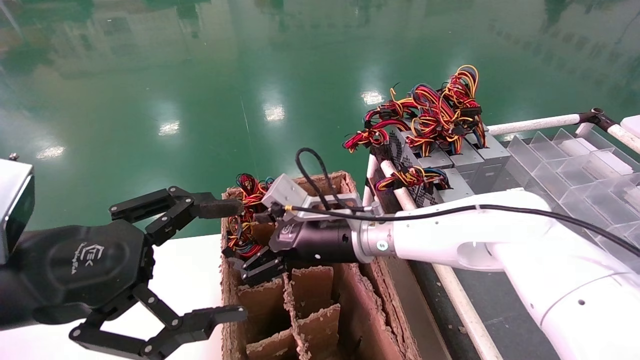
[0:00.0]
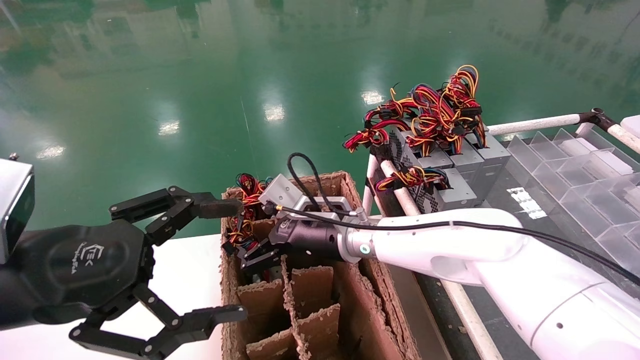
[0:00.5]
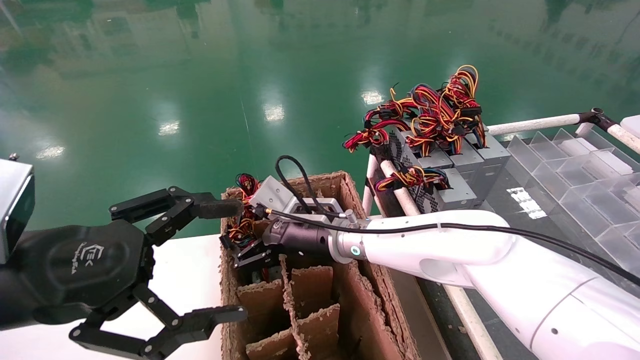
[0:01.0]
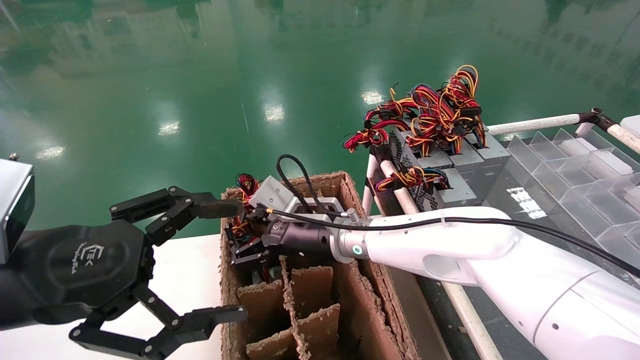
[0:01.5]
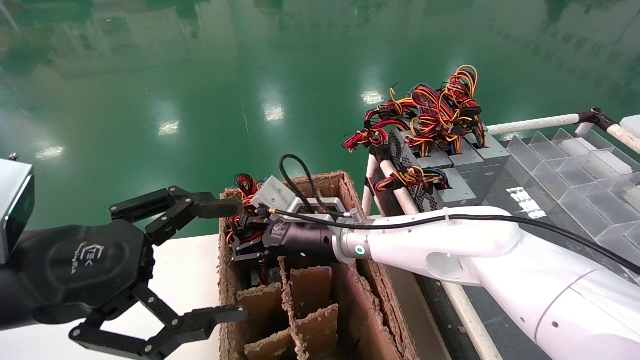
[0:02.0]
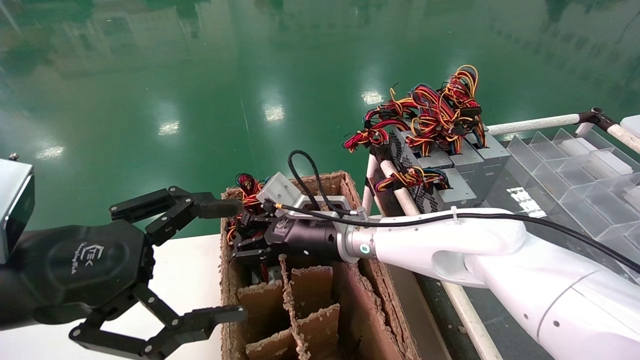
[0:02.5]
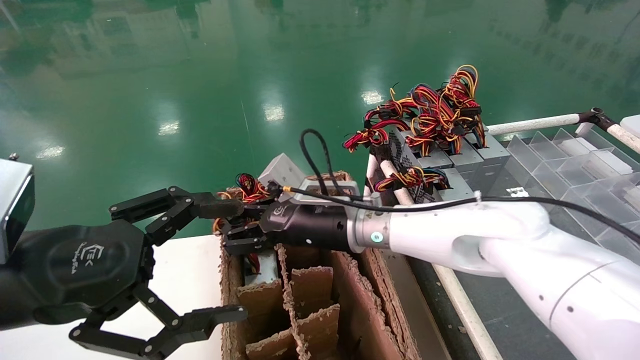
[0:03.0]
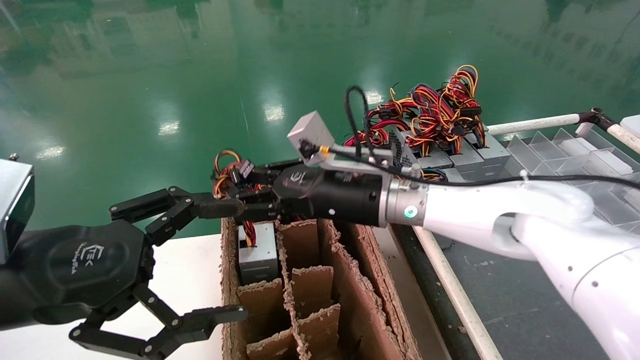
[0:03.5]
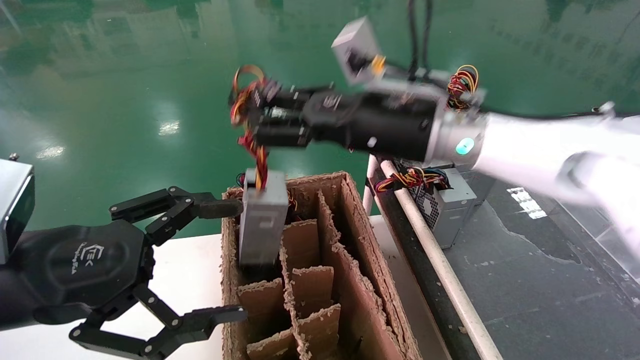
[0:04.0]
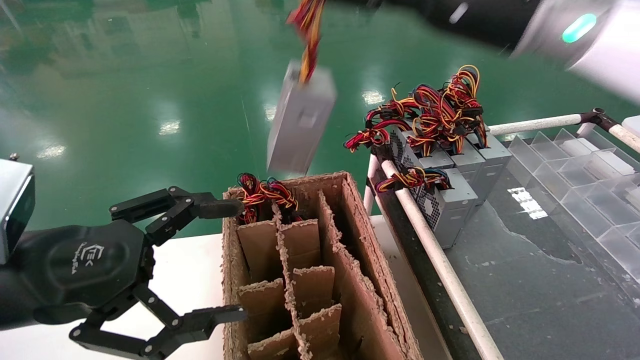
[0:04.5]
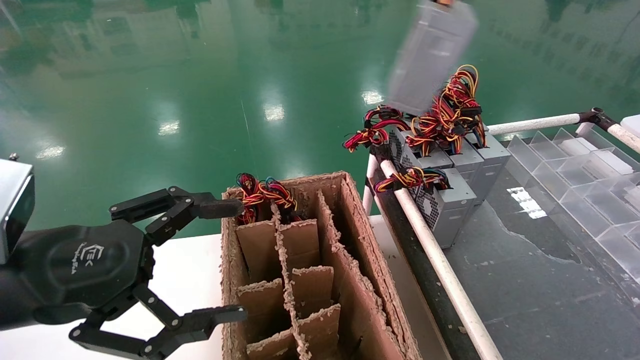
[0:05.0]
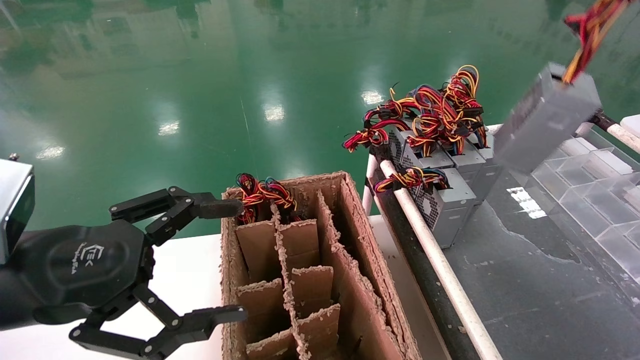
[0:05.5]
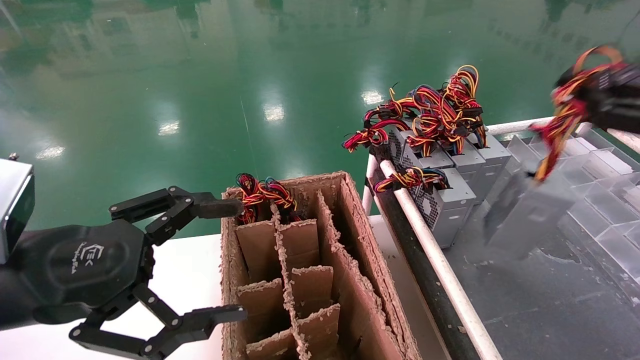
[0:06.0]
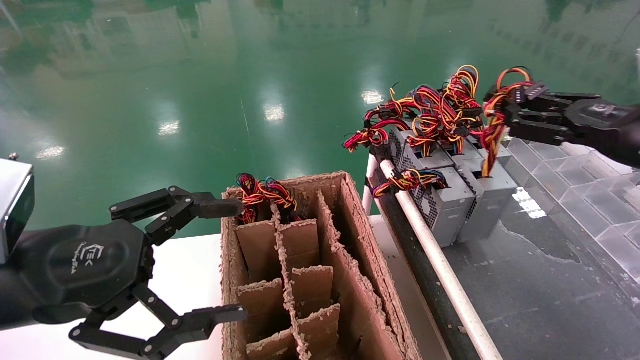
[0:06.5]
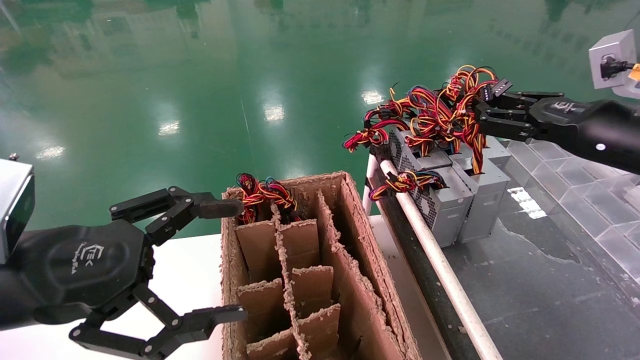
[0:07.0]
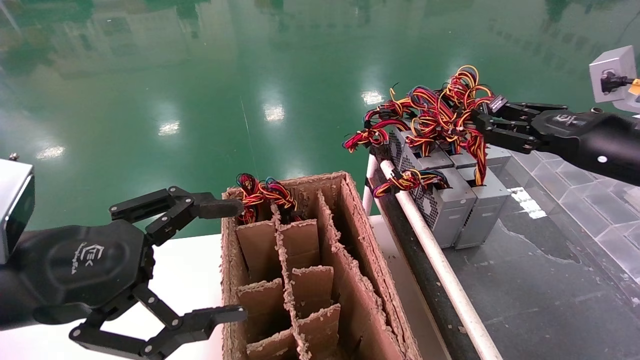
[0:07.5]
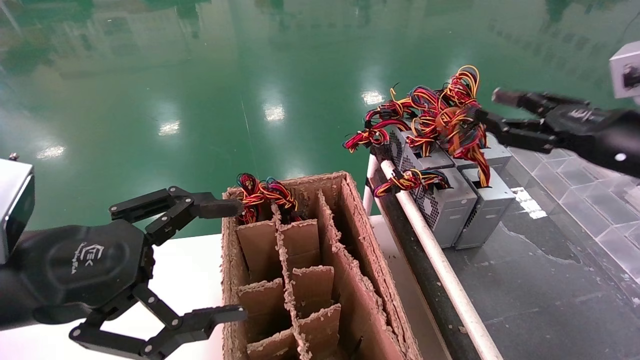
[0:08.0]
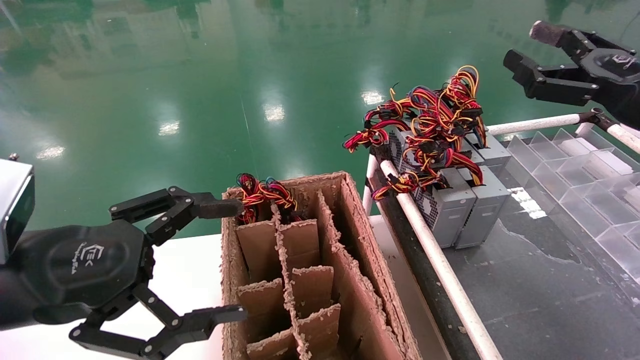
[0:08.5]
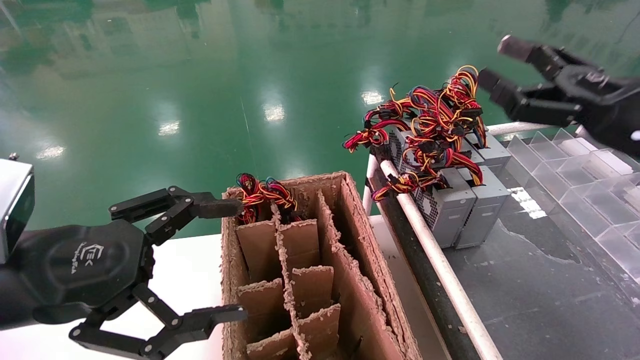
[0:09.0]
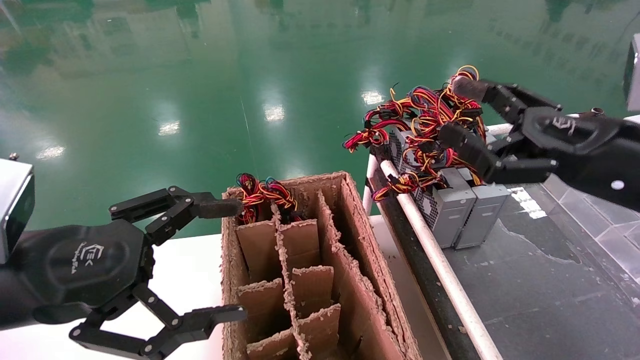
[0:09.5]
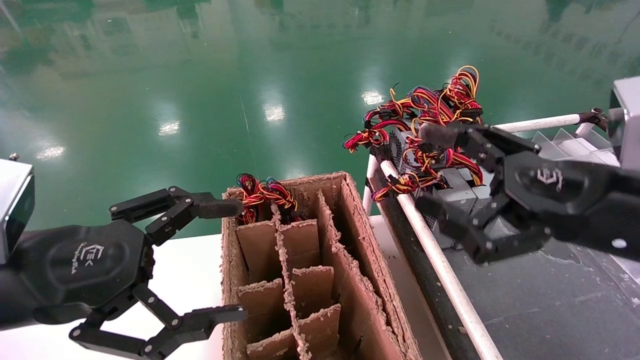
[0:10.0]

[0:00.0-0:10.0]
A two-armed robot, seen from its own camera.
Step, 0:00.0 to 0:02.5: Grab and lift the power supply from the large box.
Step, 0:03.0 to 0:07.5: Place the power supply on the operating table.
0:00.0 to 0:02.0: The right gripper closes up.
0:02.0 to 0:04.0: The right gripper goes about 20 cm upward and to the right.
0:04.0 to 0:06.0: The right gripper travels to the right by approximately 35 cm.
0:06.0 to 0:08.0: The right gripper moves to the left and forward, about 10 cm, and opens its fingers.
0:08.0 to 0:10.0: The right gripper heads to the left and backward, covering about 15 cm, and opens up.

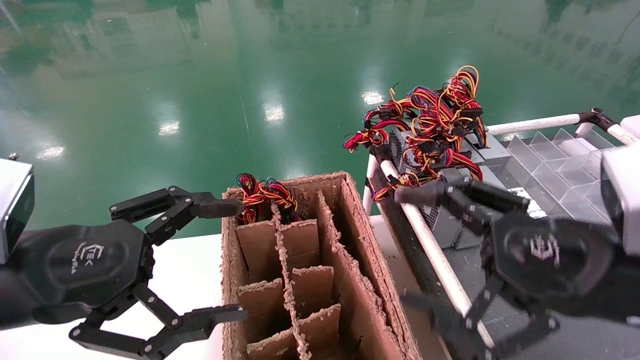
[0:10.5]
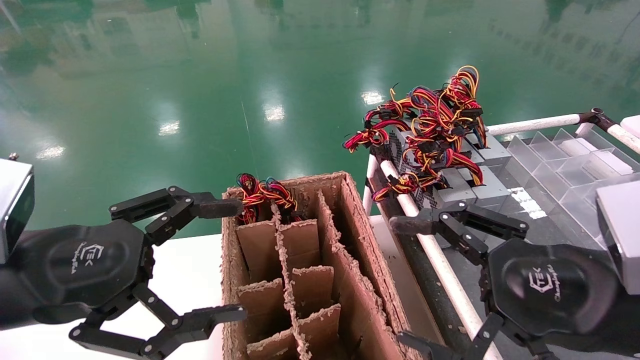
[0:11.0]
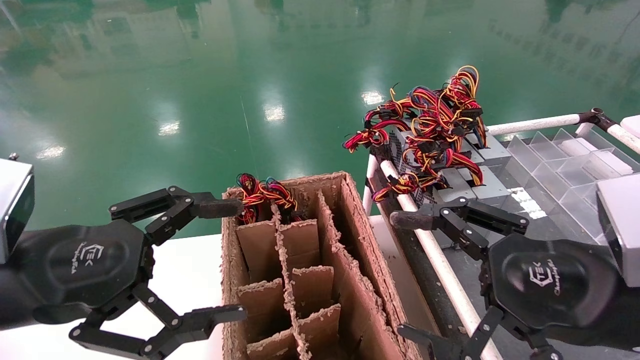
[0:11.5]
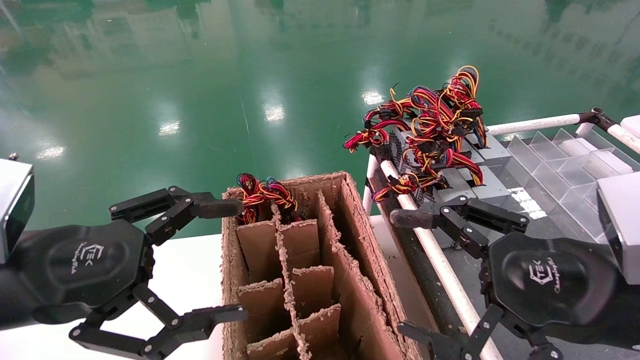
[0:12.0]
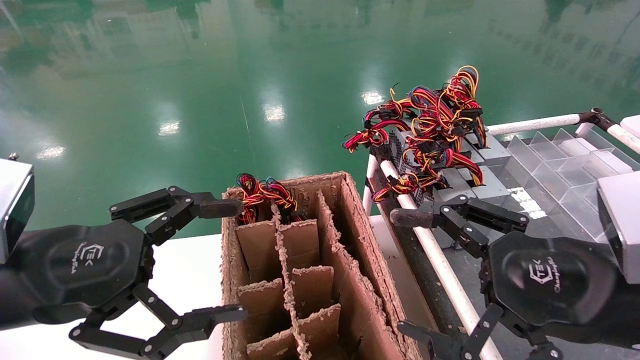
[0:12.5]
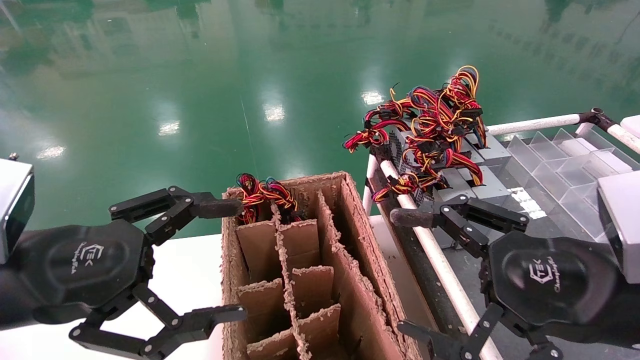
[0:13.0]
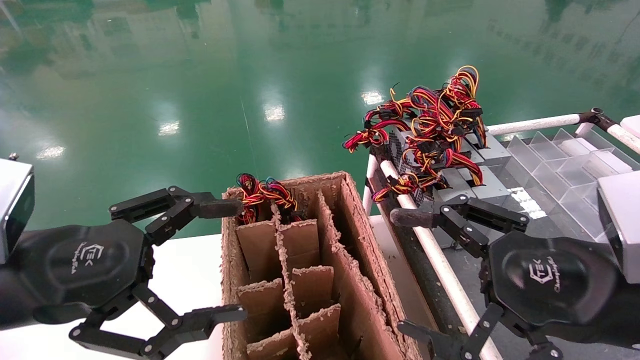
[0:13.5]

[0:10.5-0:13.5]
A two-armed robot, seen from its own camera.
0:10.5 to 0:12.0: The grippers move only a little.
0:12.0 to 0:13.5: The two grippers keep their place.

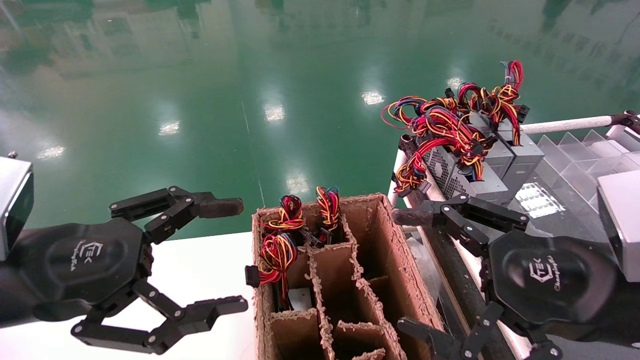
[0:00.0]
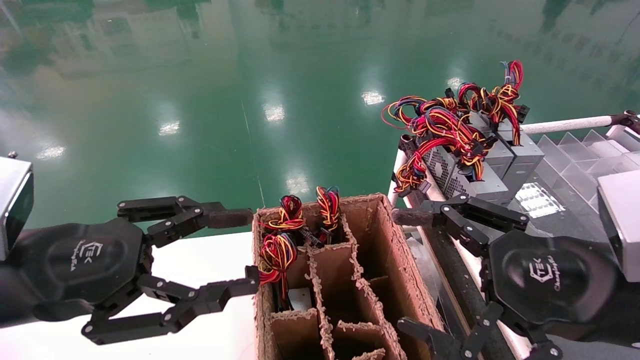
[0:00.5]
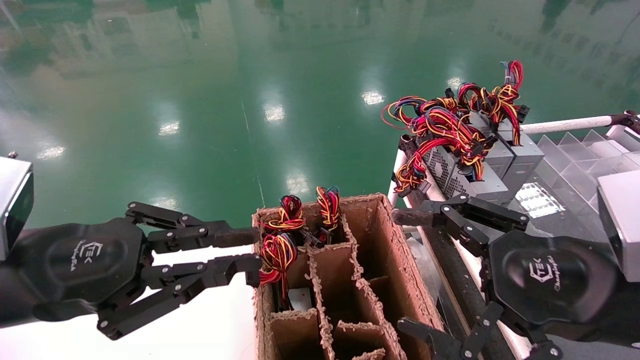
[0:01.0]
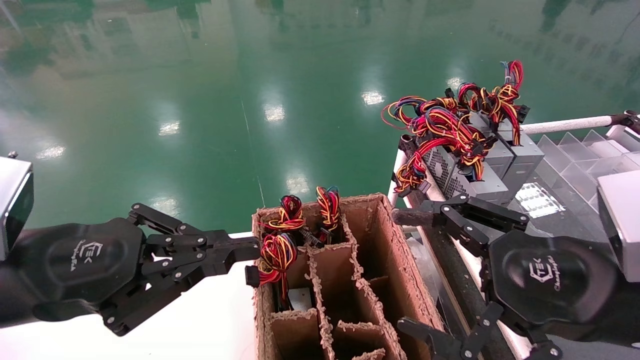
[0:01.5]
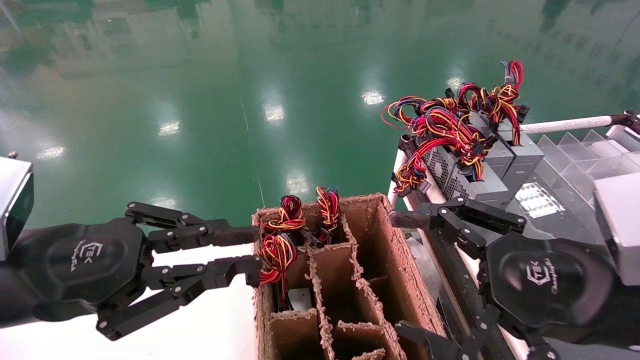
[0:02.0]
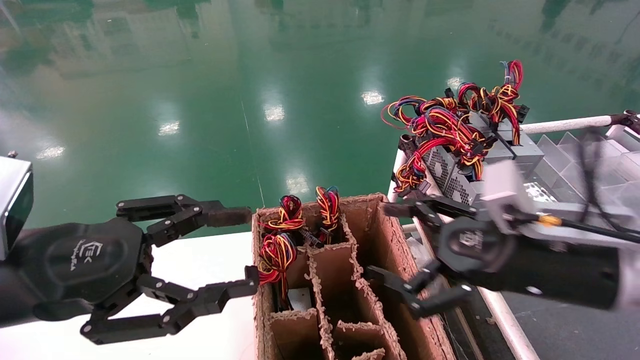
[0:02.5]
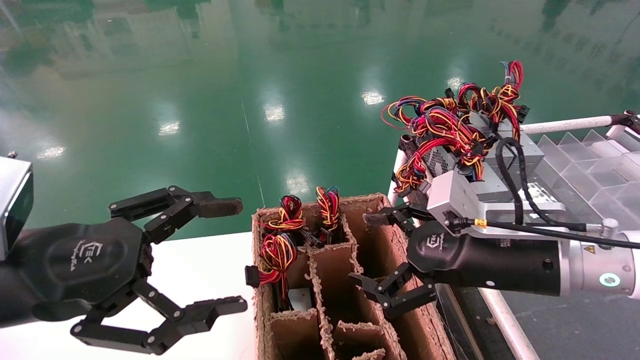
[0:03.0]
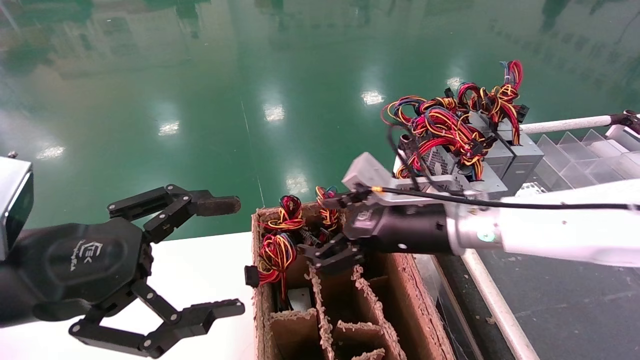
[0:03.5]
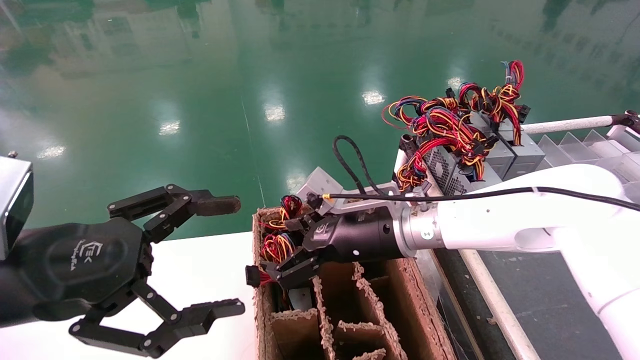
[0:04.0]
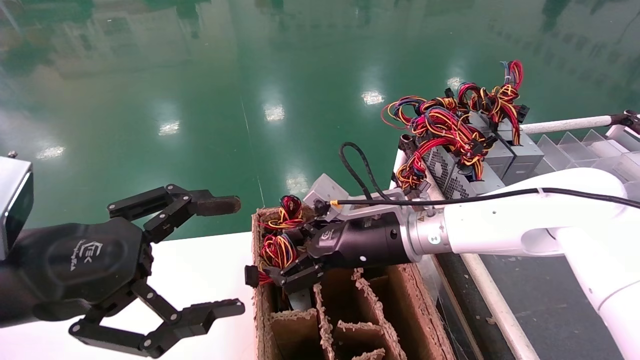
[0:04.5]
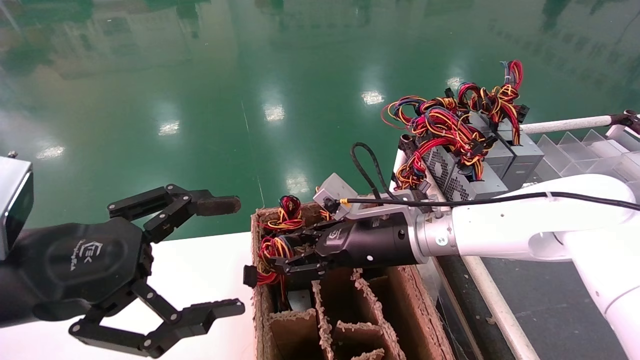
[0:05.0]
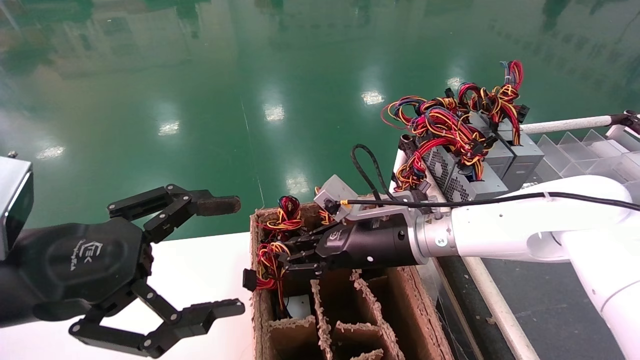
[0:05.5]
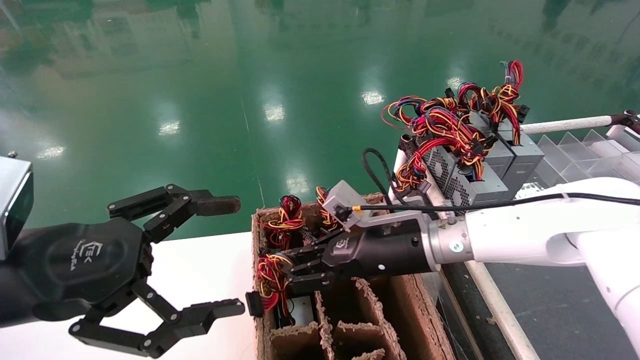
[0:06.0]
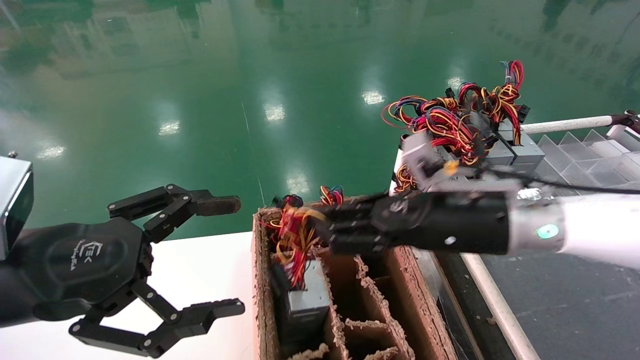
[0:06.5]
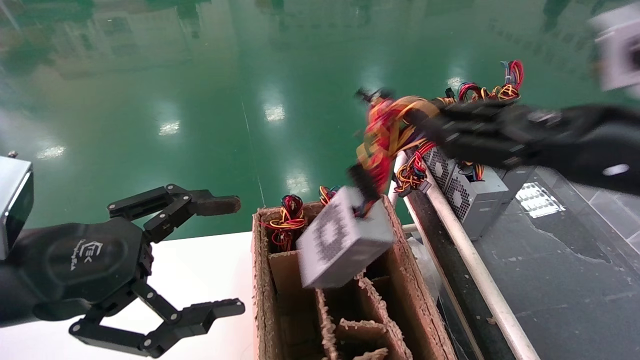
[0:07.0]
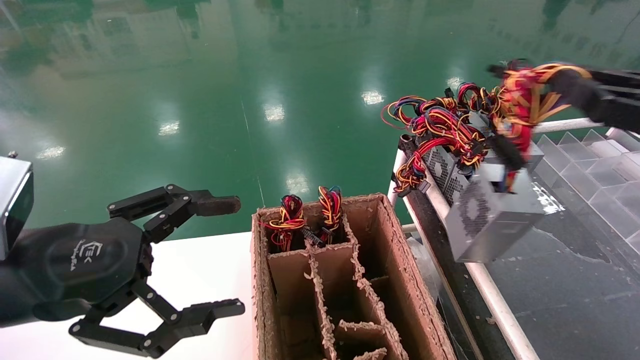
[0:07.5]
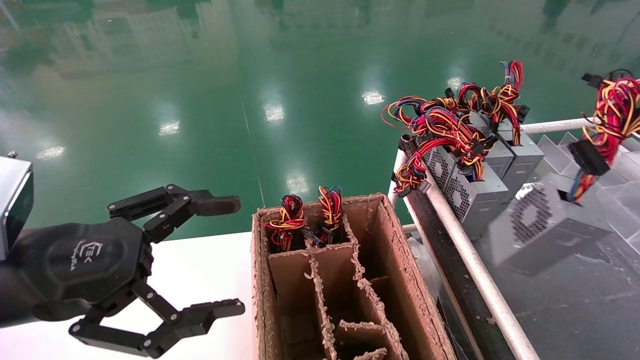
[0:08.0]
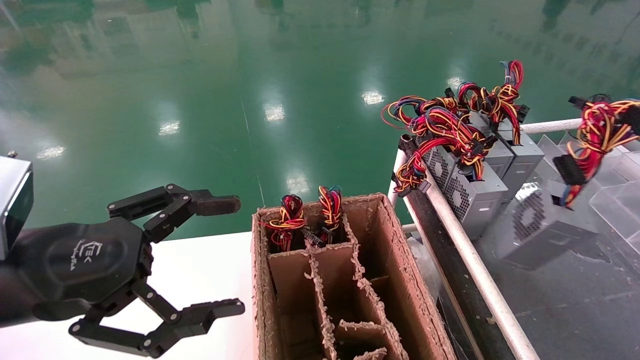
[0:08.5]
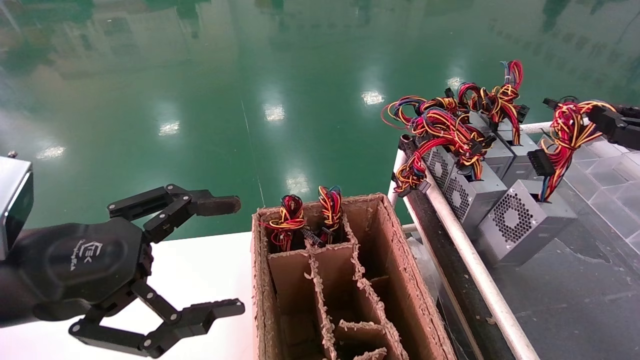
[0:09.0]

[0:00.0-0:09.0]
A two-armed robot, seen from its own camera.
Step, 0:01.5 to 0:05.5: Grab and lift the power supply from the large box.
0:00.0 to 0:02.0: The left gripper closes its fingers.
0:02.0 to 0:04.5: The left gripper opens up; the right gripper travels forward and to the left by some 25 cm.
0:04.5 to 0:07.0: The right gripper goes some 25 cm to the right, upward and backward, and closes its fingers.
0:07.0 to 0:09.0: The right gripper is displaced to the right by about 20 cm.
